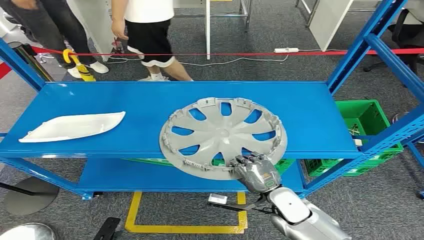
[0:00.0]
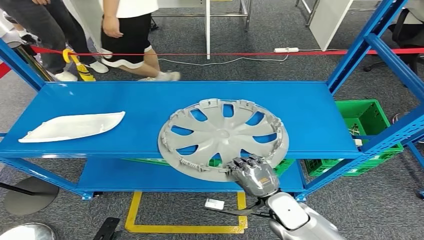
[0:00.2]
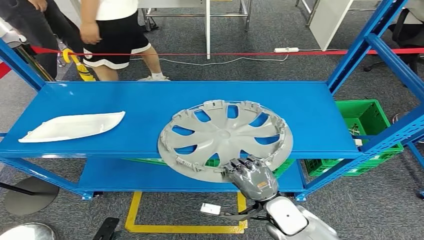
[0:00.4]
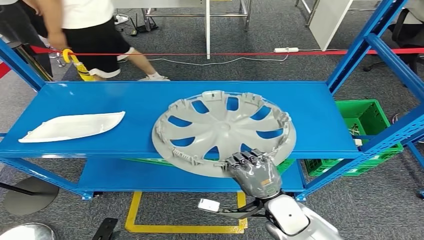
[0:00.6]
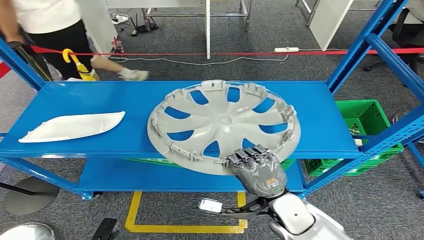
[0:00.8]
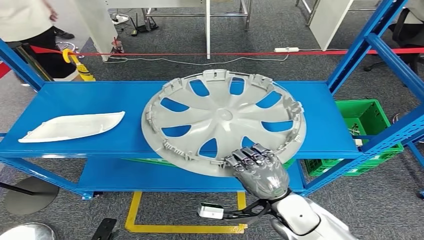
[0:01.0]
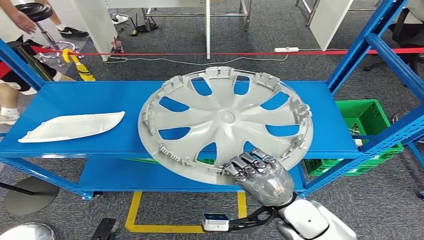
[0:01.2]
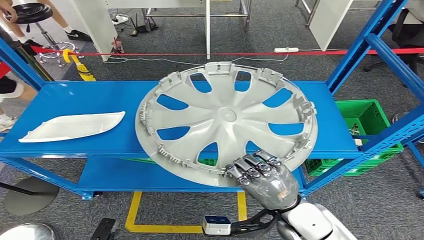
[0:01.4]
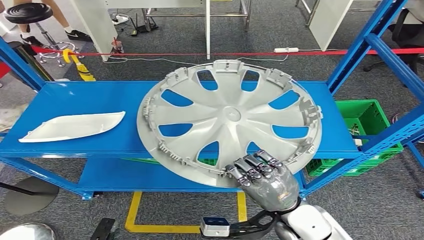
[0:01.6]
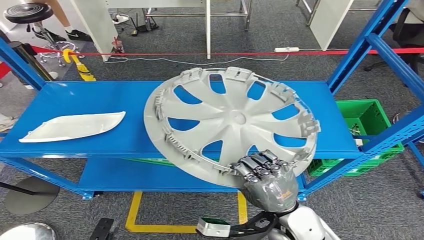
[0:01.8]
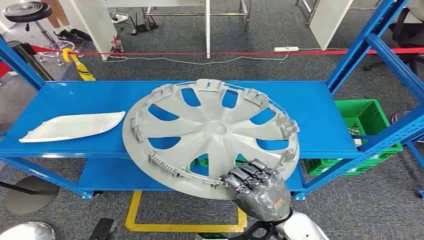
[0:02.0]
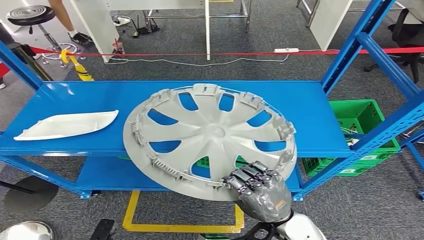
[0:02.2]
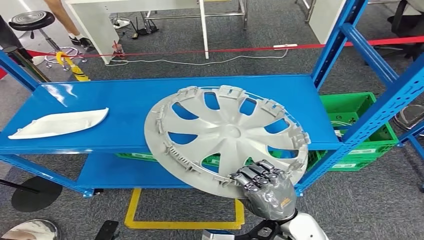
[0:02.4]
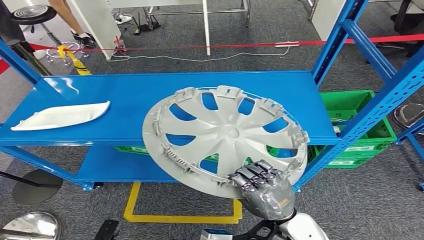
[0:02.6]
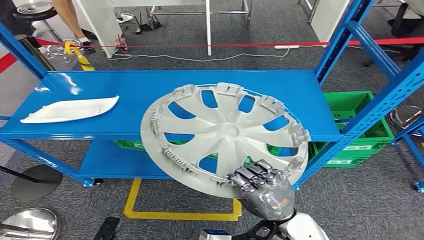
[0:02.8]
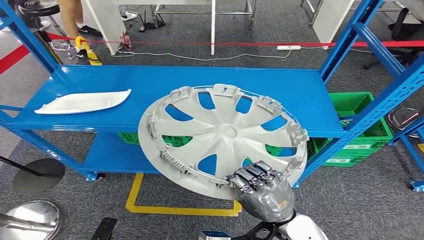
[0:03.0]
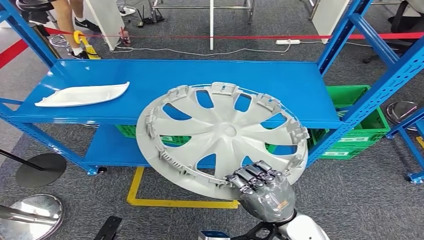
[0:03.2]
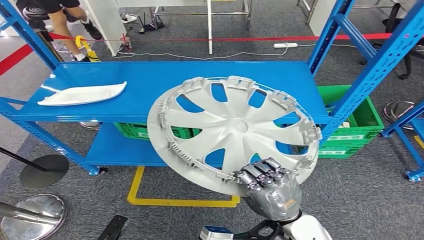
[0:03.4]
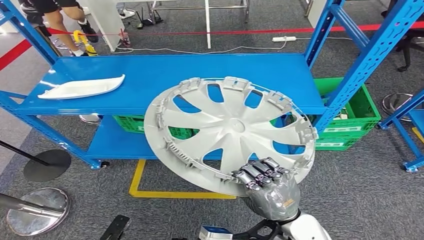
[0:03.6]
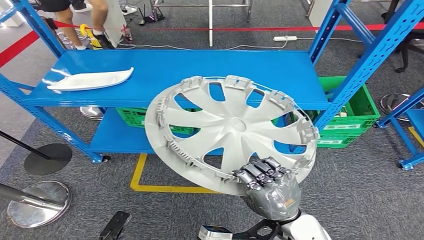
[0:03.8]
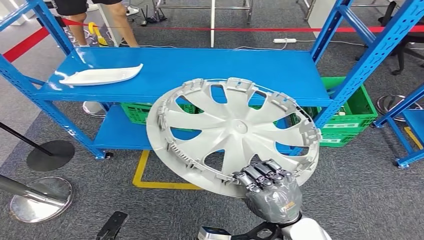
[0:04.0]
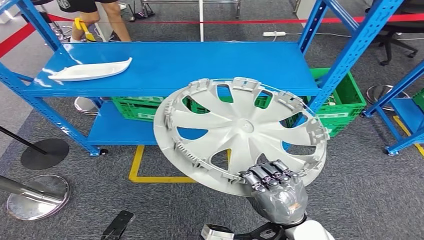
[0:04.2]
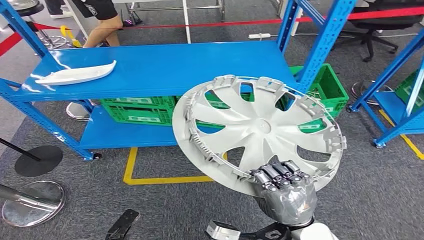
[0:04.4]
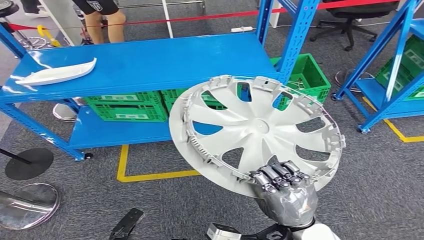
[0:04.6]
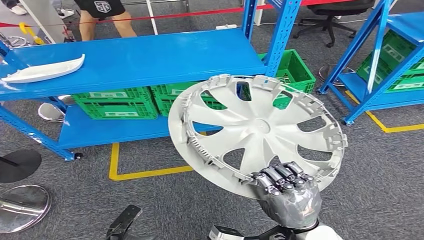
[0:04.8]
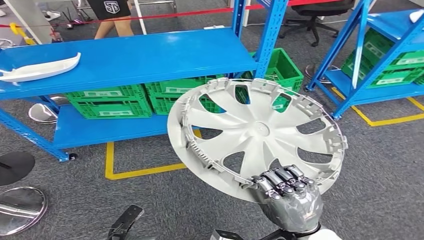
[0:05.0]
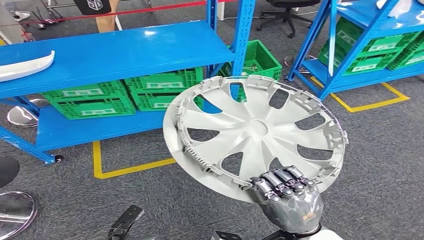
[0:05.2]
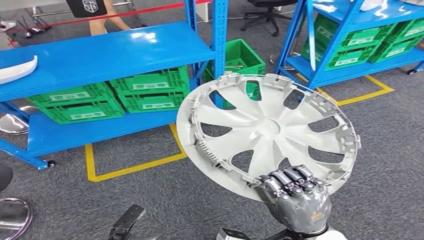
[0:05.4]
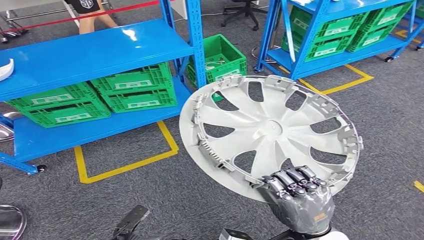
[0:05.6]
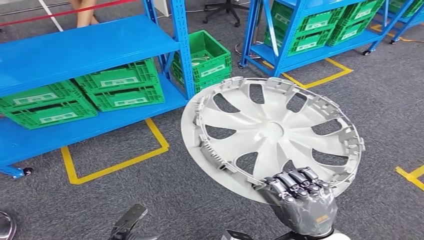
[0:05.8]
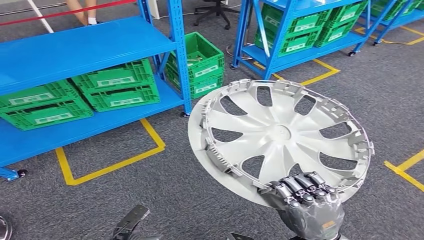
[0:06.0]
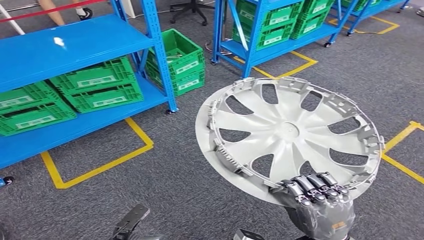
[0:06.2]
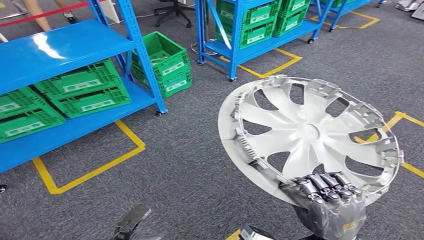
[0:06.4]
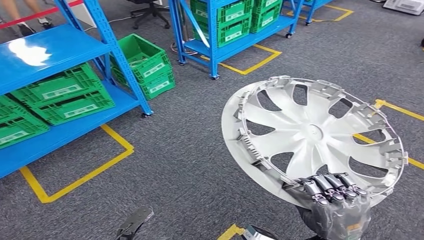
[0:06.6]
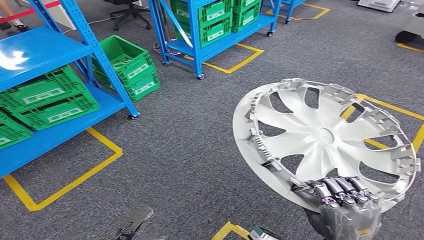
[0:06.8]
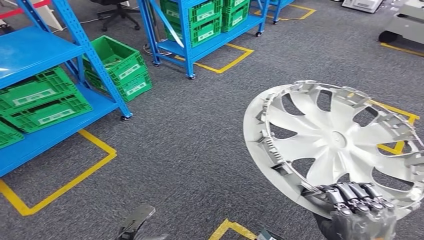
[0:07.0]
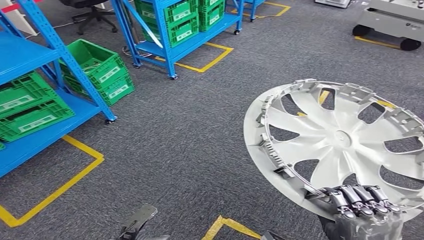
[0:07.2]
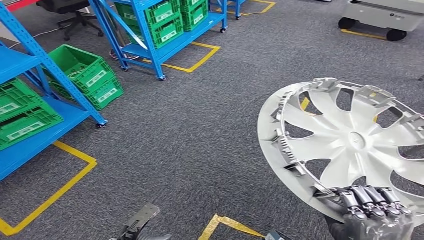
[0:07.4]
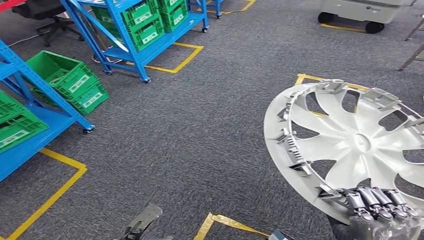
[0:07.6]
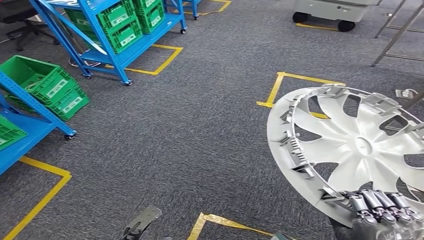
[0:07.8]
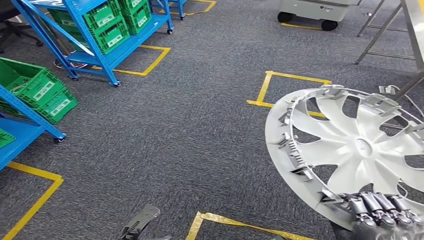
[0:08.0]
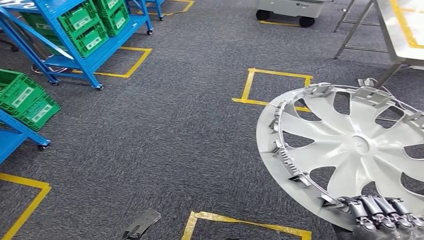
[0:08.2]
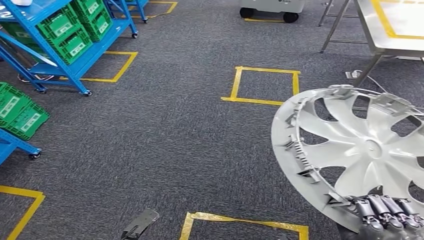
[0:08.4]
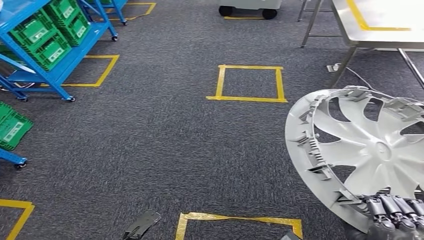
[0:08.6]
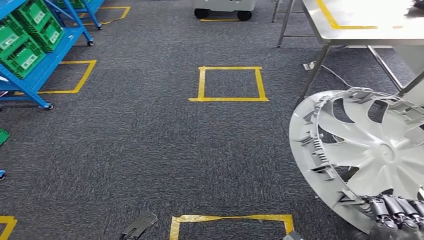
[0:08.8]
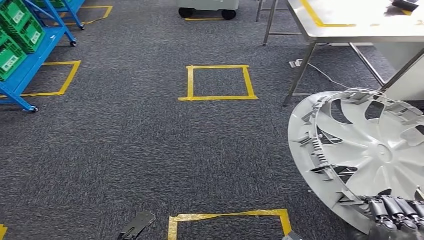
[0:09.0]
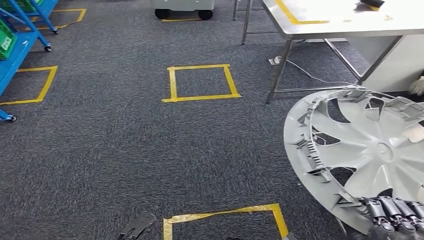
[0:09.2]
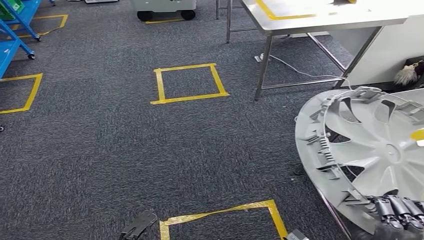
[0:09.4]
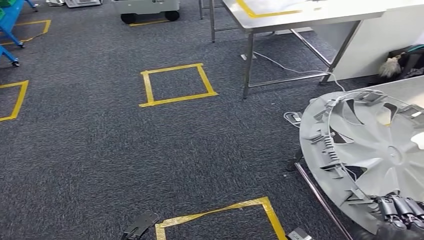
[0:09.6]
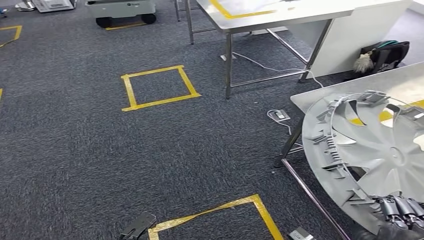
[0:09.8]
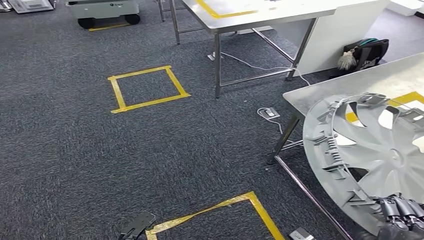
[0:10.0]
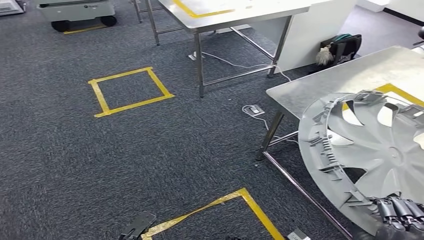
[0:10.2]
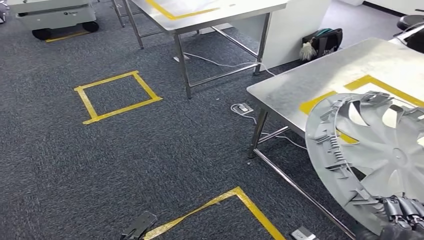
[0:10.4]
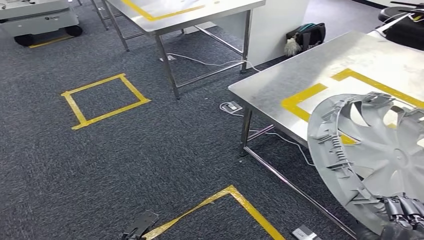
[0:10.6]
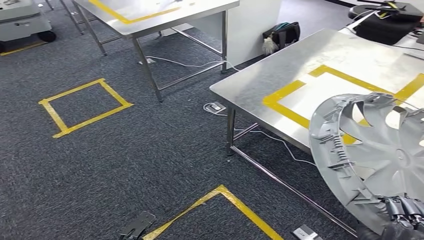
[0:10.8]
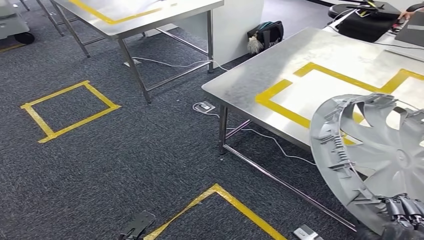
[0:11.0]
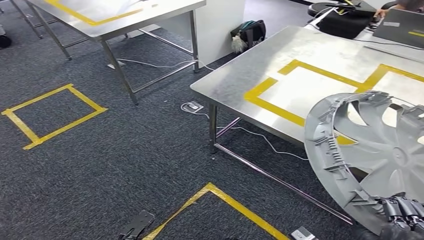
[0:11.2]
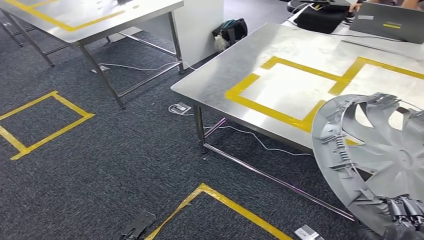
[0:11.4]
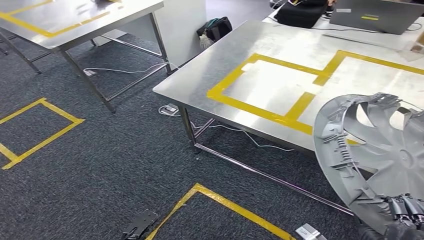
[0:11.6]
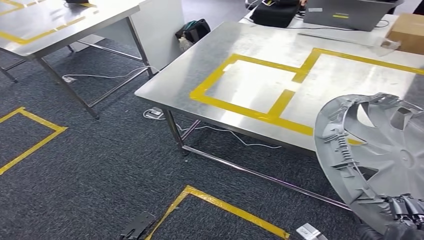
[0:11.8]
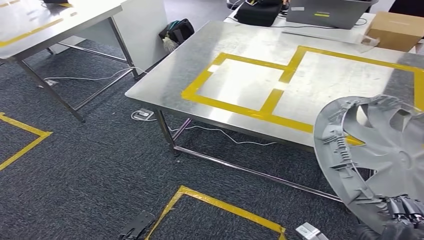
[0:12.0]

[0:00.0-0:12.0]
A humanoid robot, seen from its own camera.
Step, 0:00.0 to 0:02.0: Take small components from the rack.

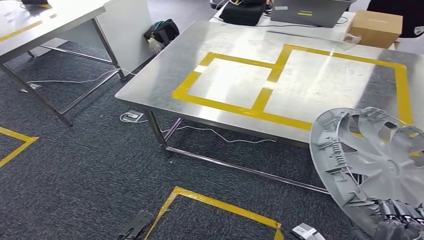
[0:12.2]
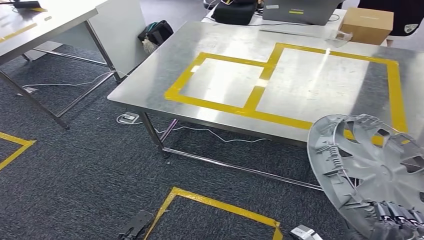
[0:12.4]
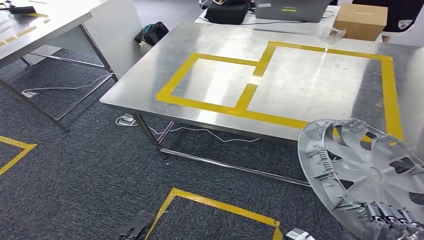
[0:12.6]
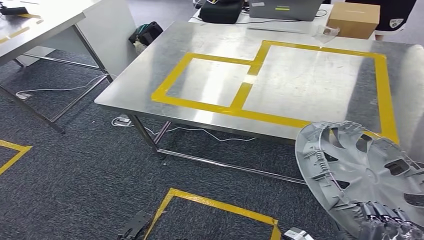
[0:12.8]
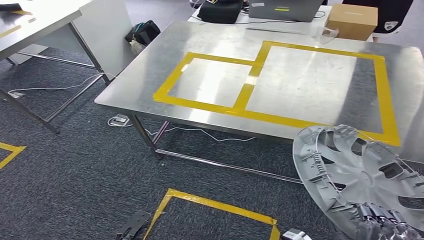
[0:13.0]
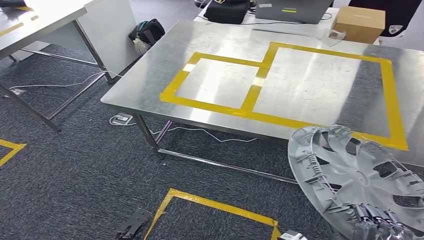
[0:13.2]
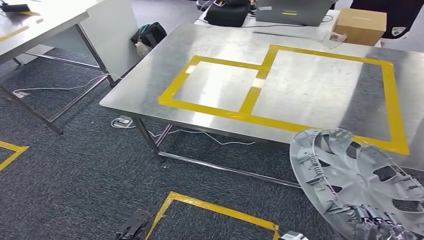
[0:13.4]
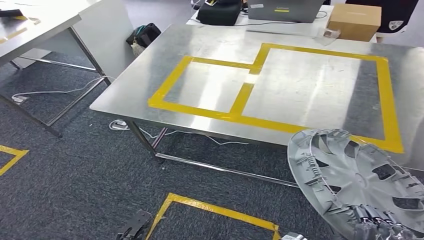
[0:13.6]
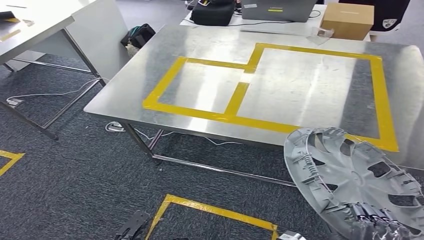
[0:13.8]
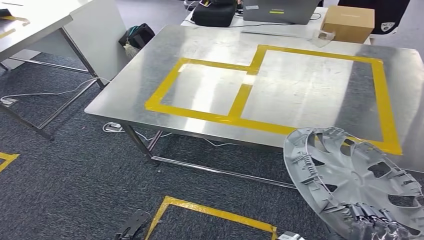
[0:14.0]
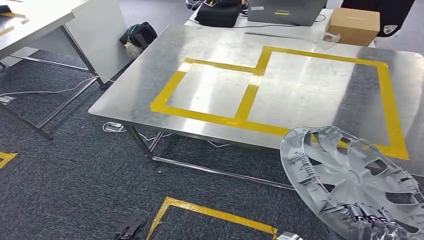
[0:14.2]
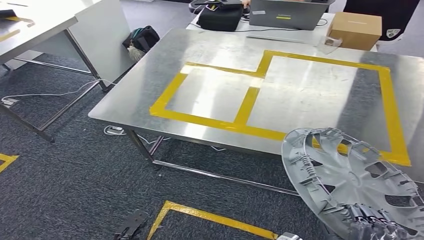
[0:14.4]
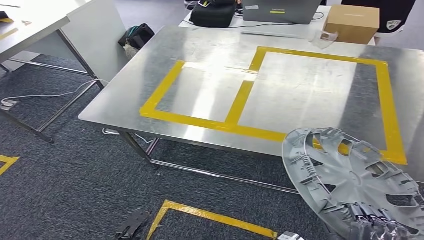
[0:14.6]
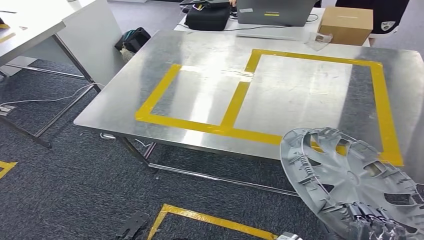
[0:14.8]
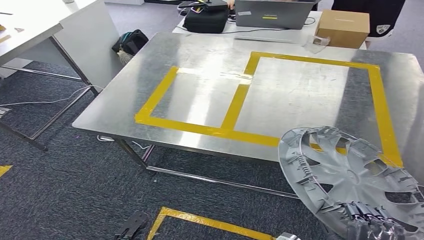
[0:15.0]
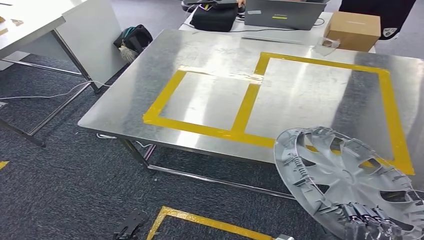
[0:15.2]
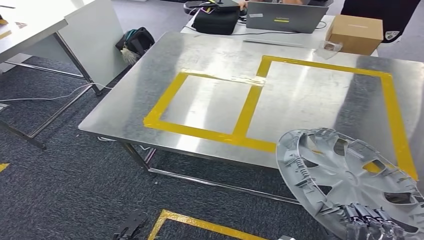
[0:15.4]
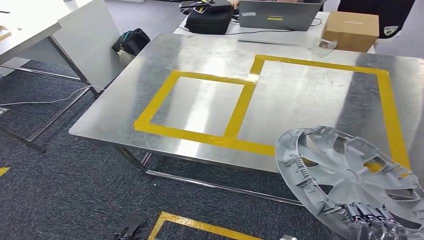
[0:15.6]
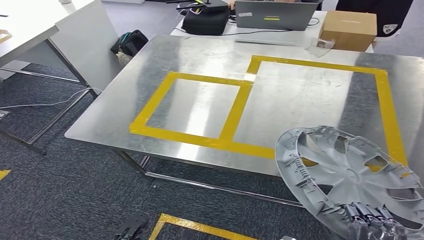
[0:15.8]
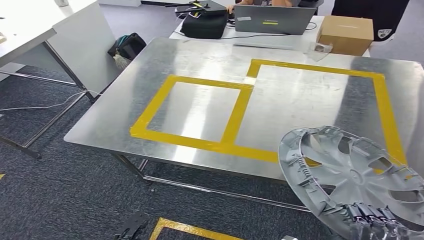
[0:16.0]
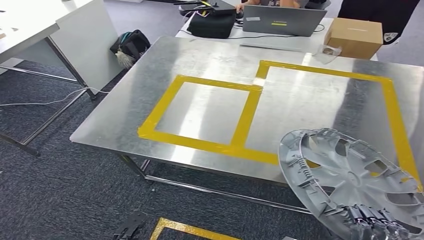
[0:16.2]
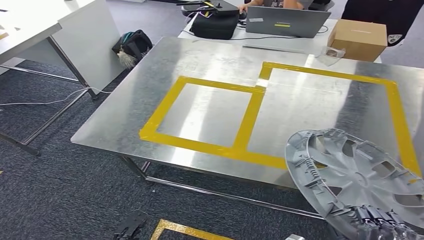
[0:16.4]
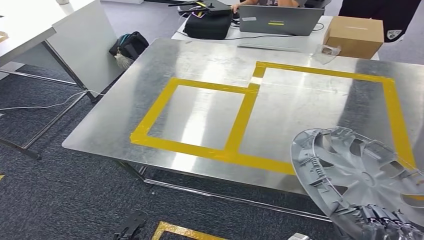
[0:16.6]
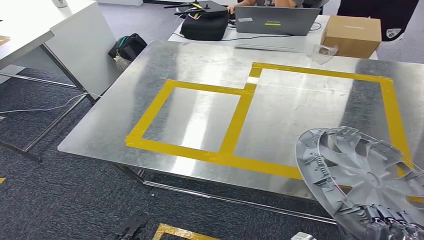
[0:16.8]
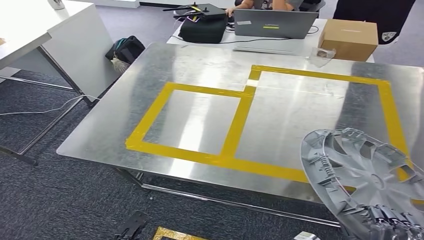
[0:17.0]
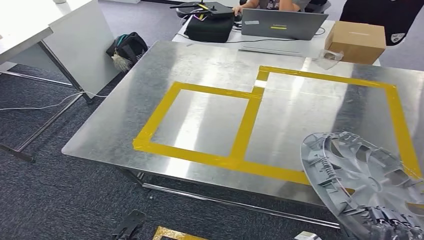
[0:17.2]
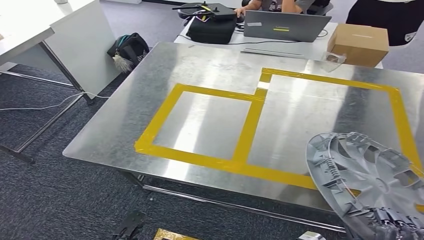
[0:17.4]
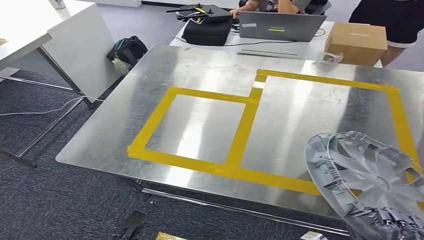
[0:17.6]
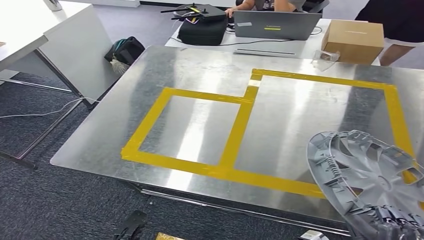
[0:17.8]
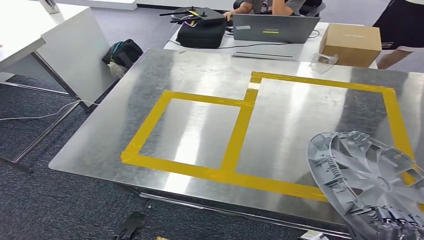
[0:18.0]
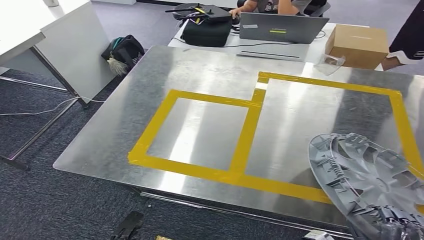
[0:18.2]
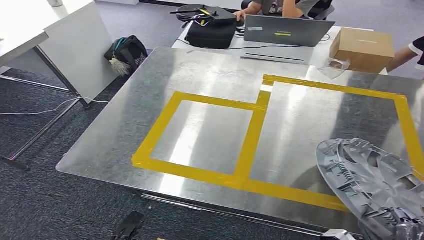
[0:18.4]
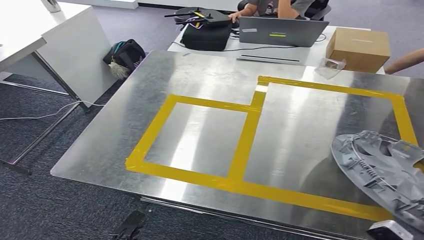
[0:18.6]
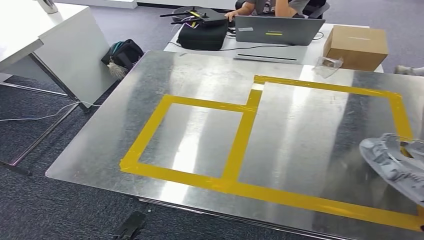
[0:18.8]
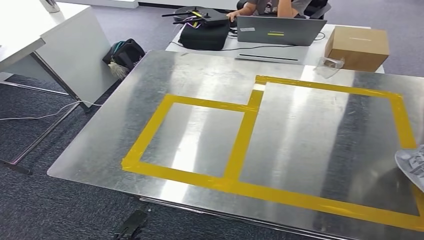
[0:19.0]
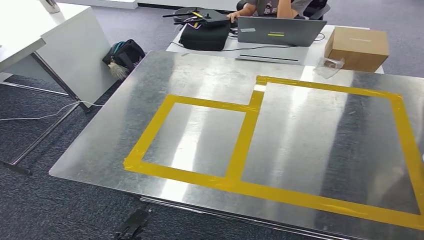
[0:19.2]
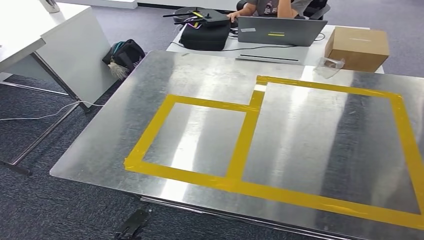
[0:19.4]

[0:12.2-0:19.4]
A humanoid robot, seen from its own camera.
Step, 0:12.2 to 0:16.6: Move the small parts to the workbench.
